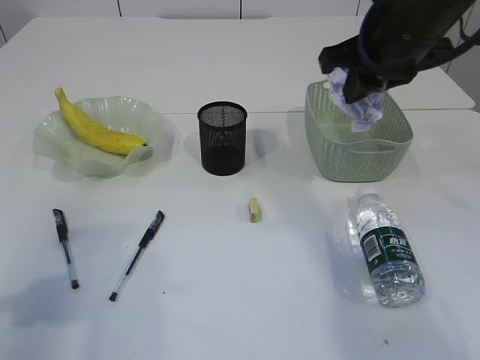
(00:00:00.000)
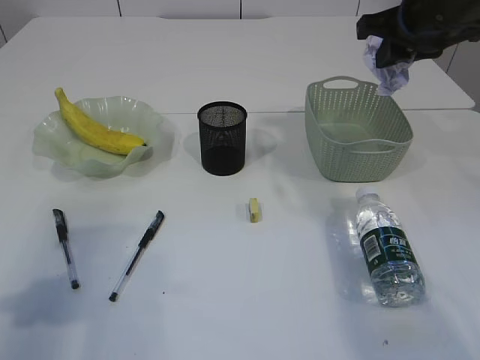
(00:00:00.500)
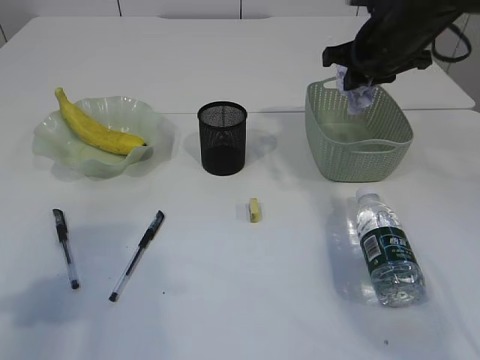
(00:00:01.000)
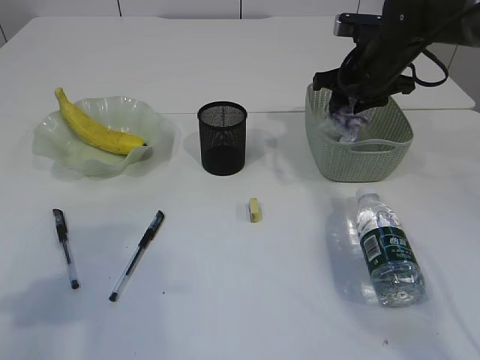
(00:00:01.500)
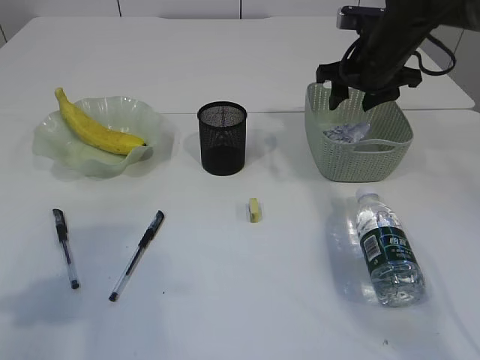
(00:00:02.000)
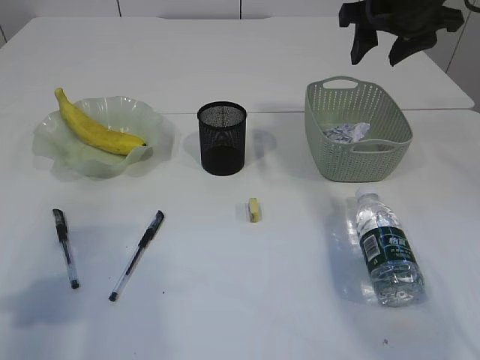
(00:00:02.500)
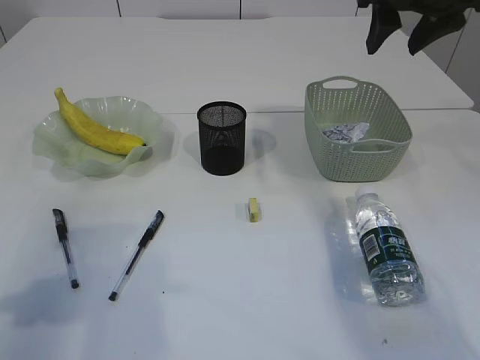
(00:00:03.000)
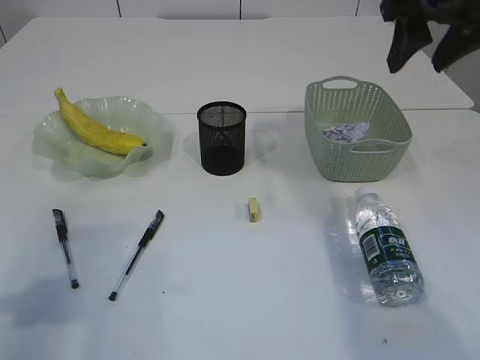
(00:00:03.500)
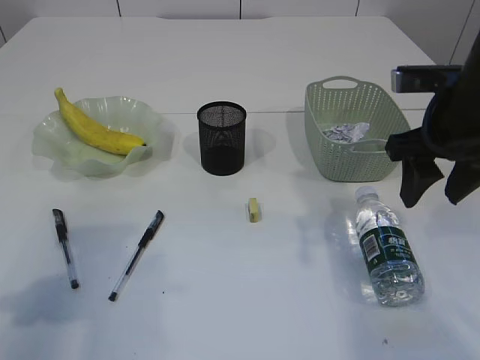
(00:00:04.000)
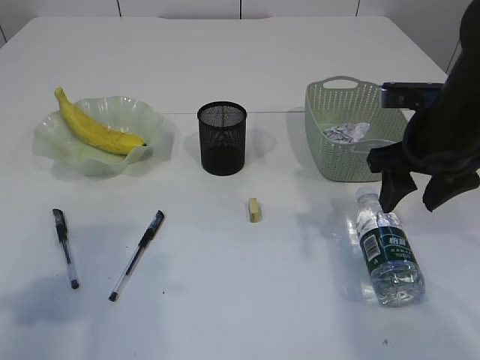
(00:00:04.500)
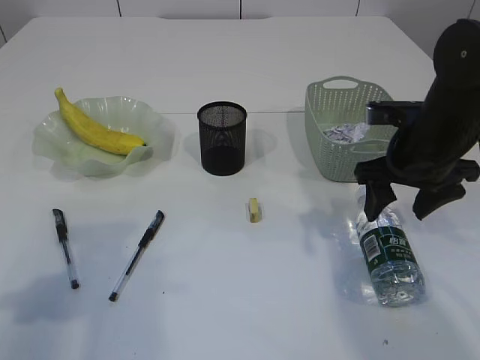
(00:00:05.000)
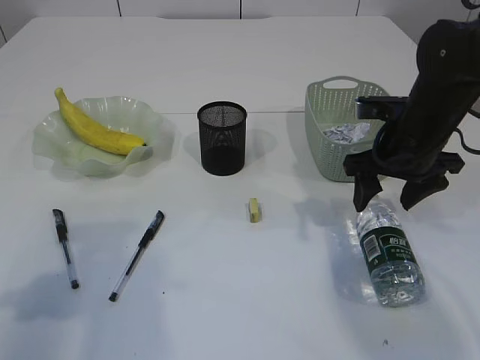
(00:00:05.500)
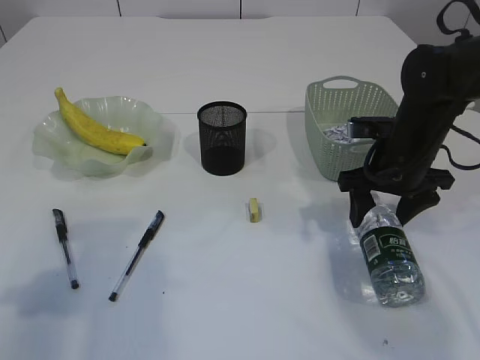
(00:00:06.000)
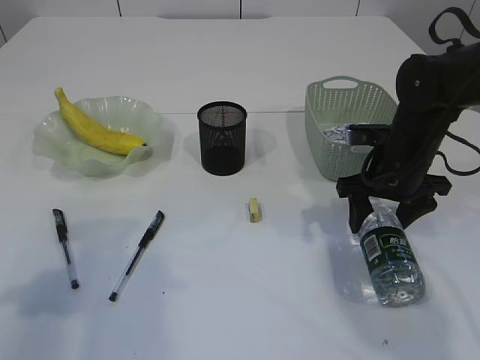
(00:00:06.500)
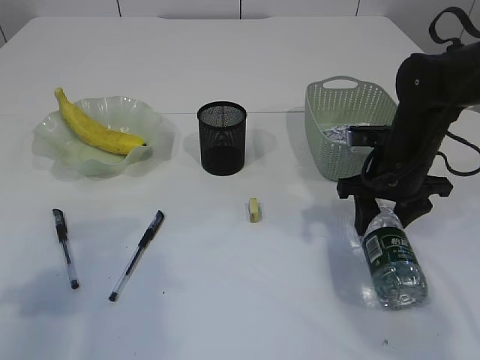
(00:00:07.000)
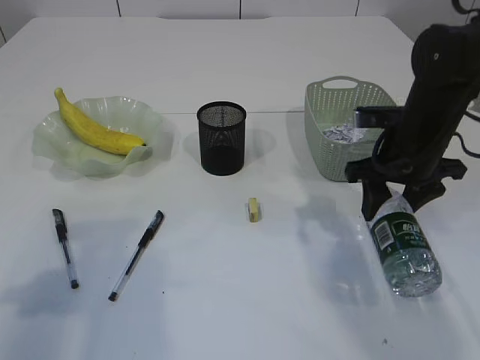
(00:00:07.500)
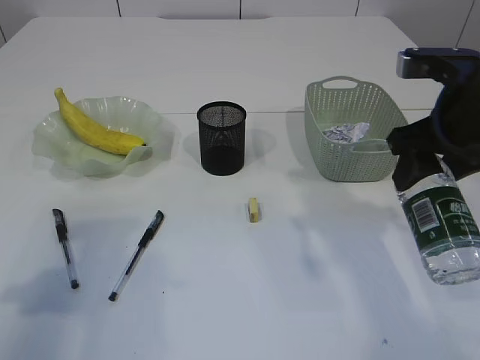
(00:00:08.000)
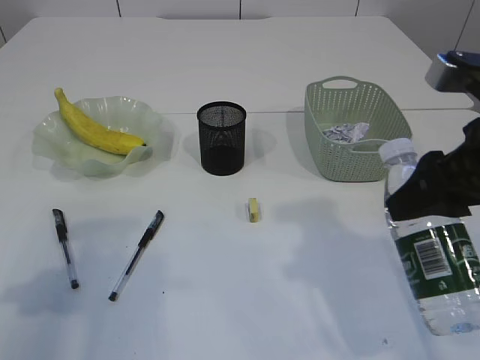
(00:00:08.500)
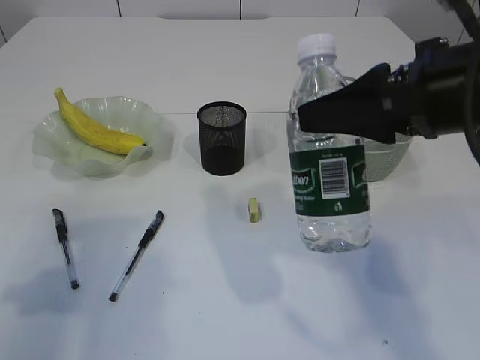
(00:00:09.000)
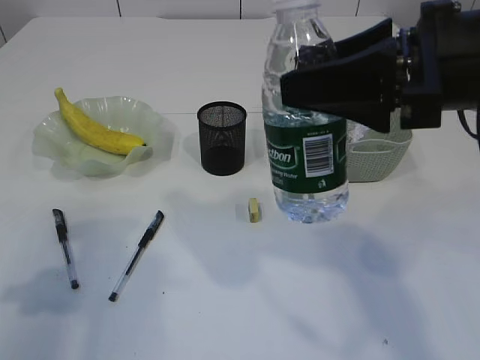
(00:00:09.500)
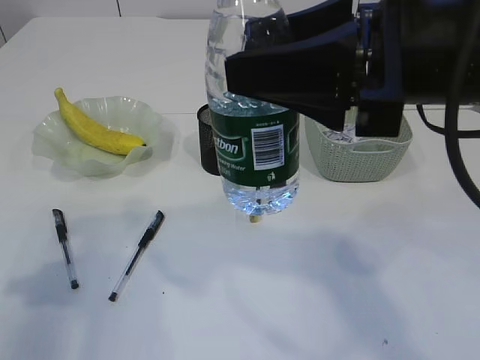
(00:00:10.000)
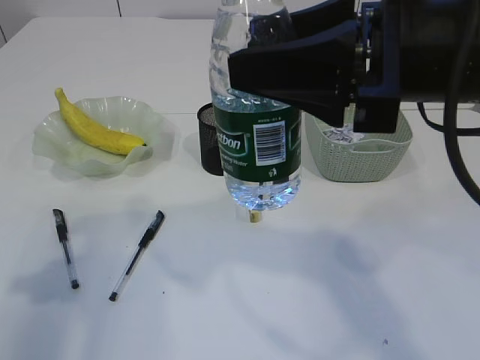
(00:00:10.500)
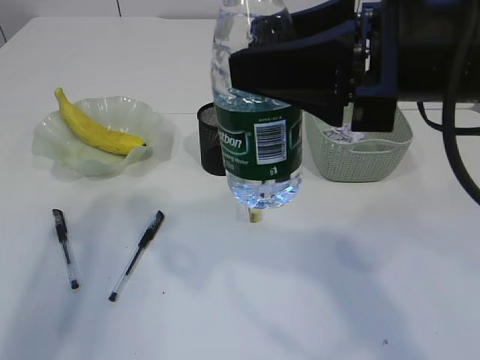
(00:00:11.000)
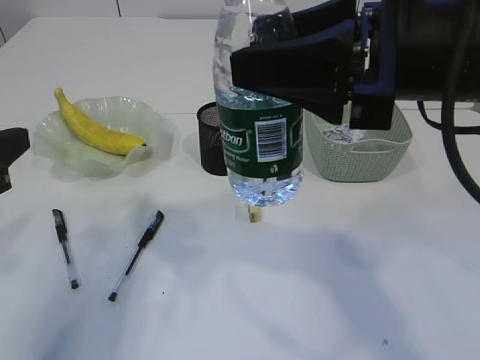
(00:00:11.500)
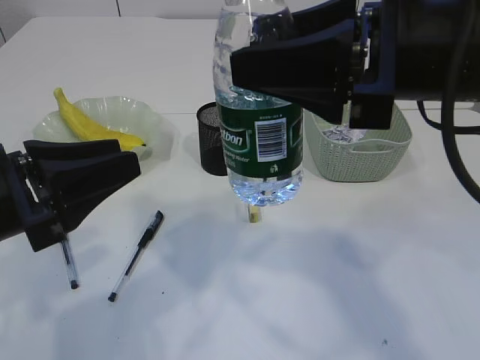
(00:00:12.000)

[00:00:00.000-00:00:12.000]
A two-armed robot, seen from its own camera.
Step, 00:00:00.000 to 00:00:02.000: Place the waste paper in the basket.
Step, 00:00:02.500 to 00:00:07.500: Pick up the bottle with the right arm.
00:00:00.000 to 00:00:02.000: The right gripper heads forward and downward, covering about 15 cm, and opens its fingers.
00:00:02.000 to 00:00:04.000: The right gripper moves backward, roughly 15 cm.
00:00:04.000 to 00:00:06.000: The right gripper goes roughly 10 cm downward and forward.
00:00:06.000 to 00:00:08.000: The right gripper moves upward and backward, about 15 cm.
00:00:08.000 to 00:00:10.000: The right gripper heads to the left, backward and upward, covering roughly 15 cm.
00:00:10.000 to 00:00:12.000: The left gripper goes some 10 cm to the right.

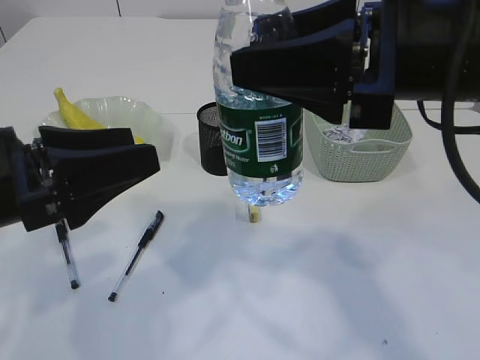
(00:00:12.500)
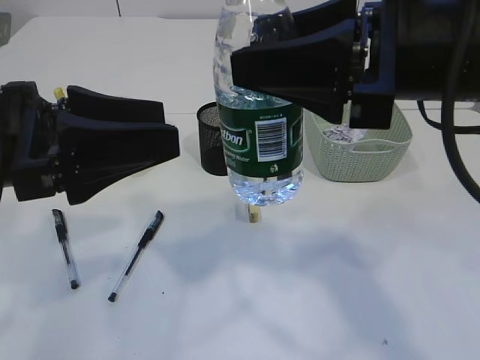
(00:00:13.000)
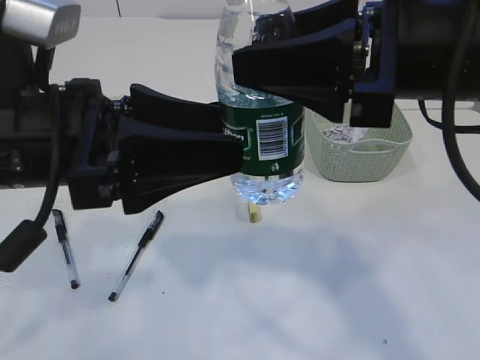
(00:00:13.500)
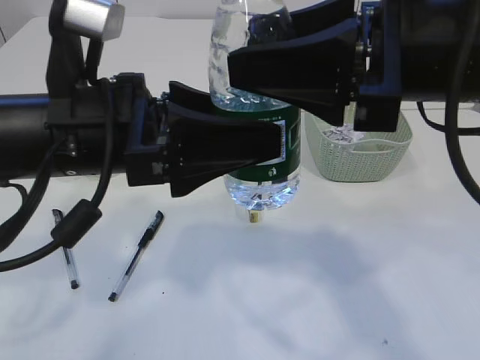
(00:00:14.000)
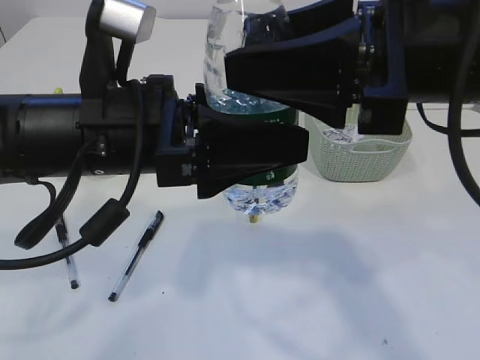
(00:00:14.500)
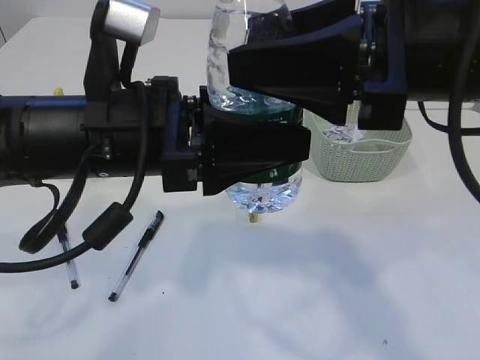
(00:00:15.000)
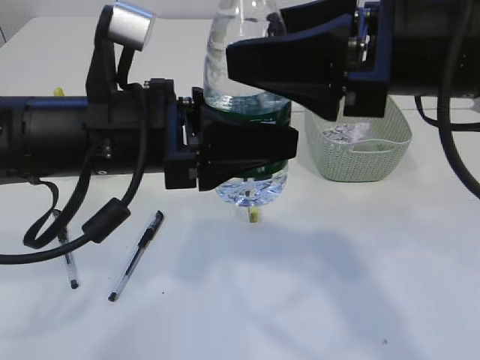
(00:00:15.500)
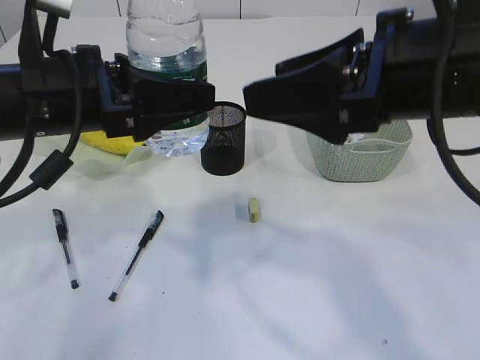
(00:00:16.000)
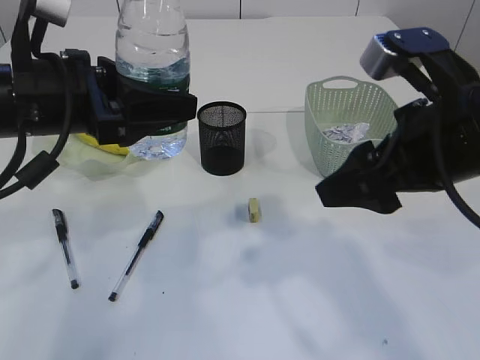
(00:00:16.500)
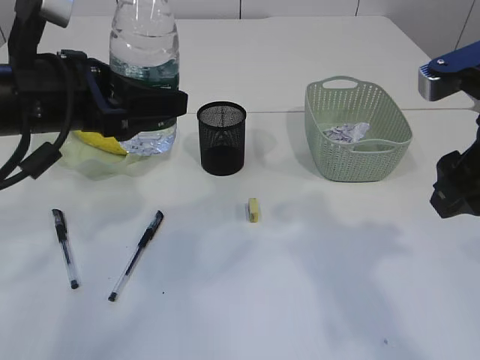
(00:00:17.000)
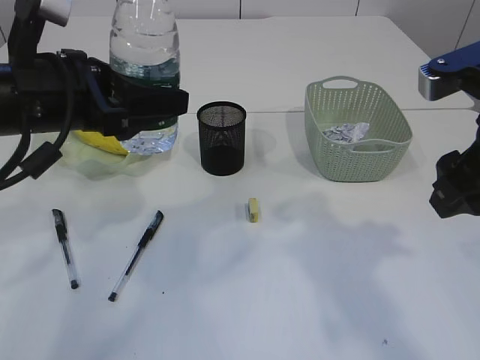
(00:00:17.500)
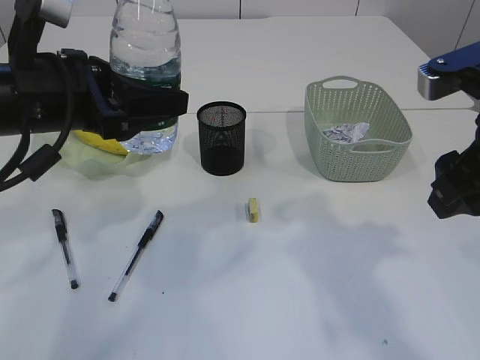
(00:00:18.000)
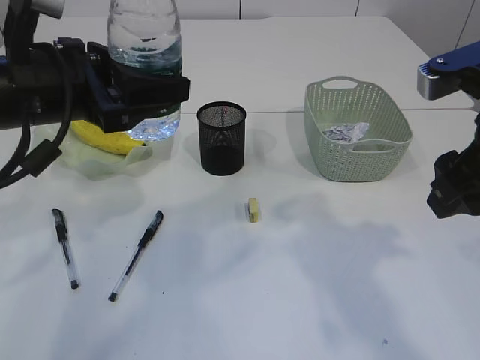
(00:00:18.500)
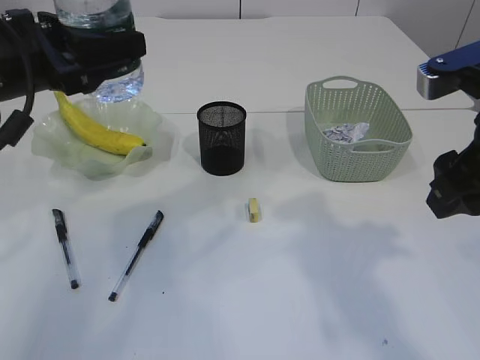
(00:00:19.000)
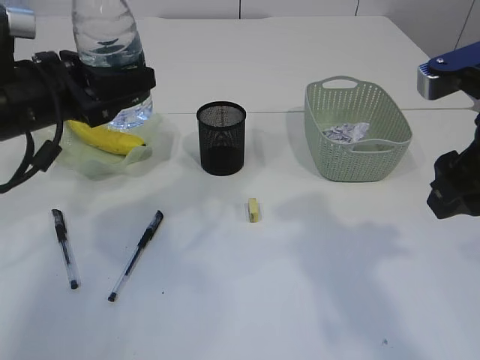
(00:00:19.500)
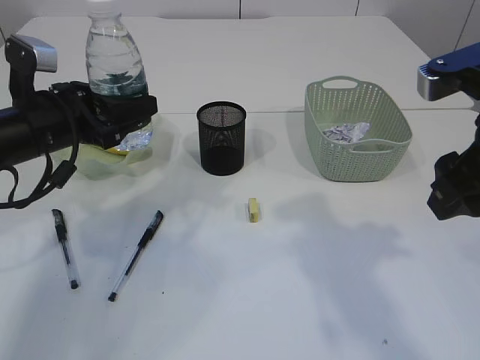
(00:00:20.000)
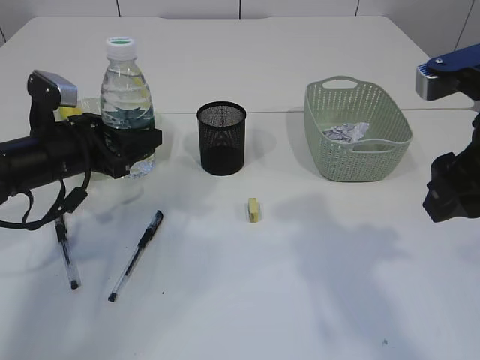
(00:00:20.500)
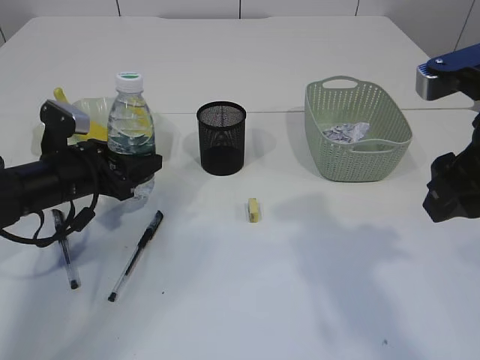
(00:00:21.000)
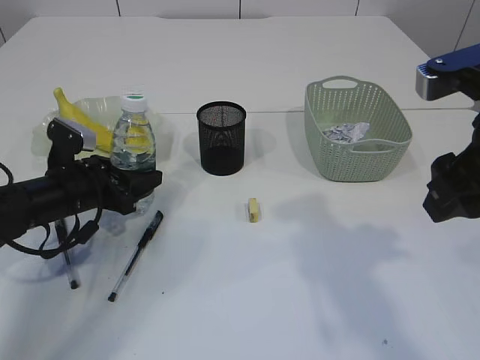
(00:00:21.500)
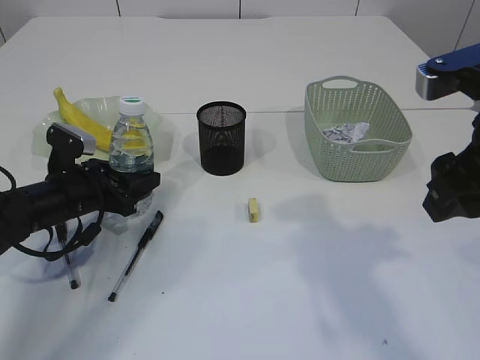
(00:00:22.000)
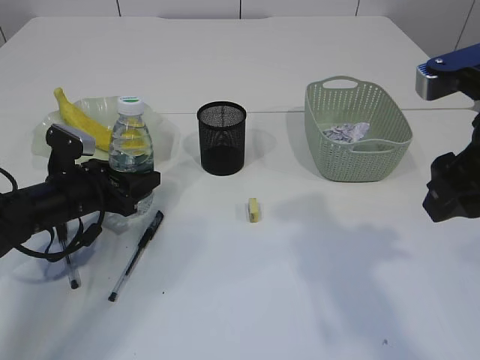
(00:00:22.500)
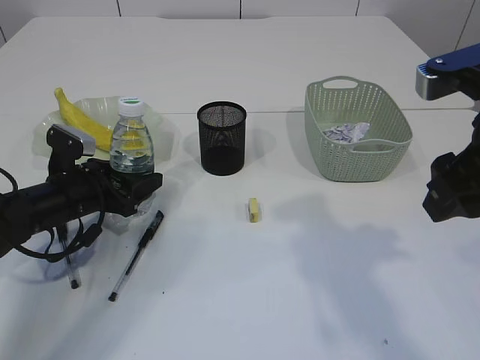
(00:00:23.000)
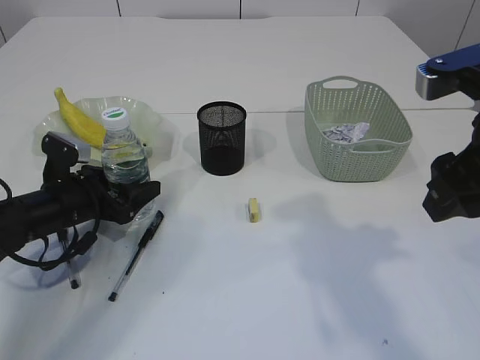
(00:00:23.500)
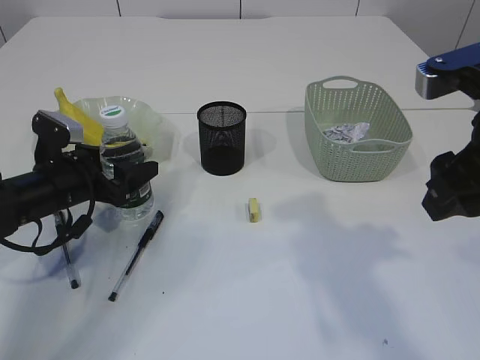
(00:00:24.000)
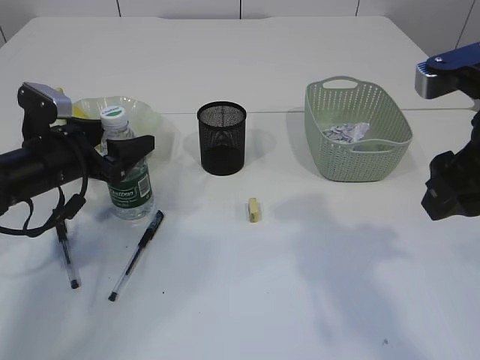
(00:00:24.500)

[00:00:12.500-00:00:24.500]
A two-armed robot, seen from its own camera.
Step, 00:00:12.500 to 00:00:15.500: transfer the bottle to the left arm.
00:00:12.500 to 00:00:14.500: The left gripper heads to the right, covering some 10 cm.
00:00:14.500 to 00:00:16.500: The left gripper is displaced to the left by roughly 10 cm. Meanwhile the right gripper travels downward by about 5 cm.
00:00:18.500 to 00:00:20.500: The left gripper is displaced downward and forward by approximately 15 cm.
00:00:20.500 to 00:00:22.500: The left gripper shifts about 10 cm downward.
00:00:22.500 to 00:00:24.500: The left gripper moves upward, about 5 cm.

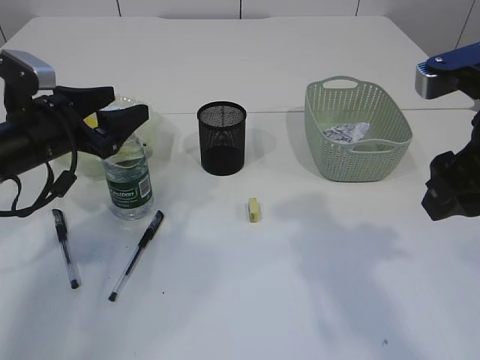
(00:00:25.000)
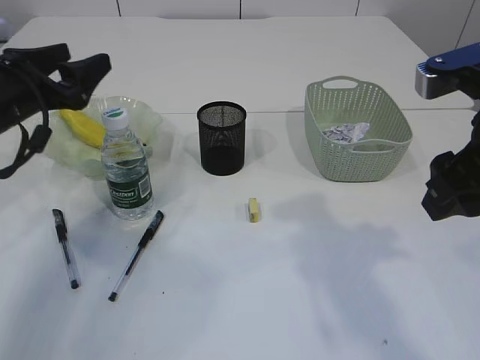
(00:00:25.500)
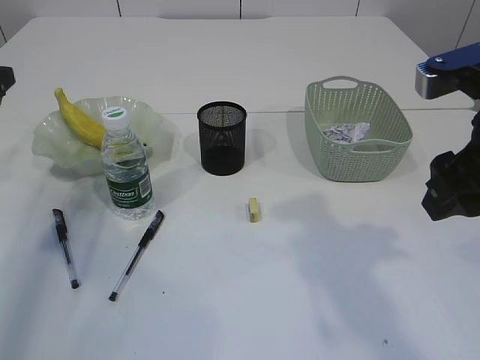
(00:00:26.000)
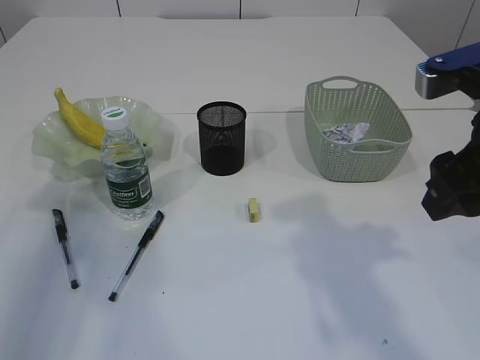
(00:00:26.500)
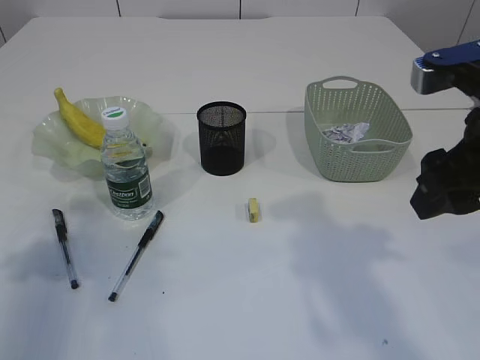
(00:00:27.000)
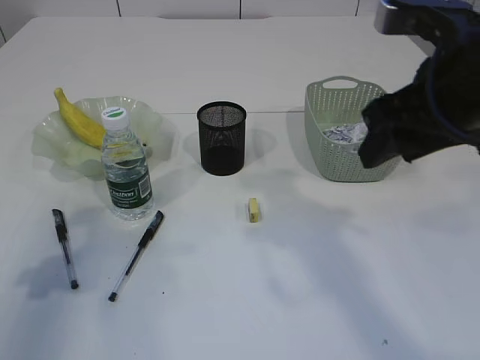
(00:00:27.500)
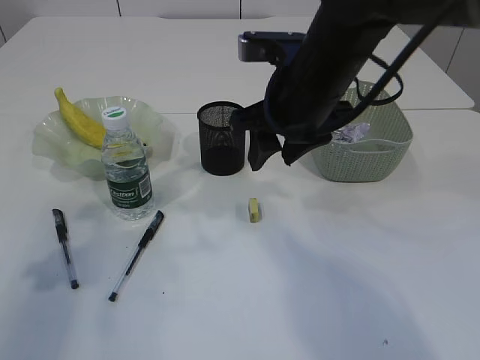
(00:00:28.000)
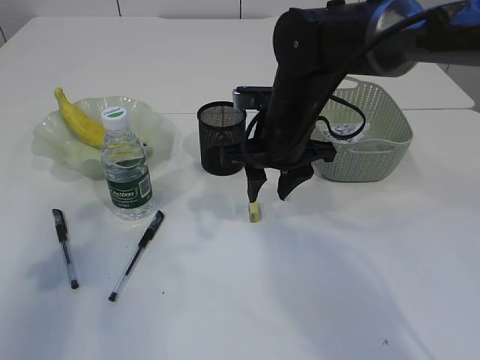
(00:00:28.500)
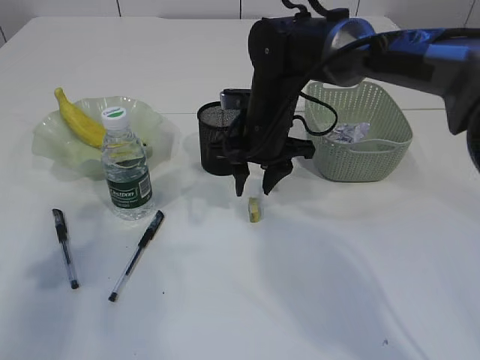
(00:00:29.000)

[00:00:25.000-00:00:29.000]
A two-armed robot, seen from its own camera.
00:00:25.000 to 00:00:27.000: The left gripper moves backward, to the left and upward, approximately 15 cm.
00:00:27.000 to 00:00:29.000: The right gripper goes roughly 25 cm forward, to the left and downward.
